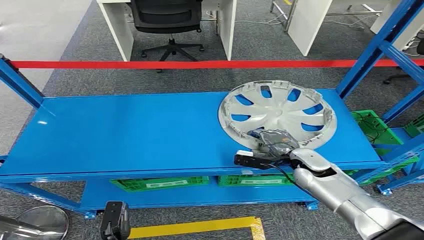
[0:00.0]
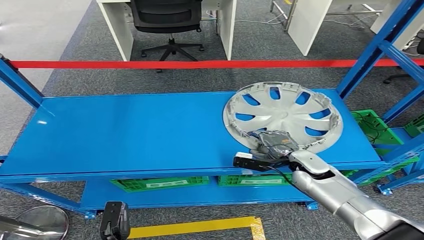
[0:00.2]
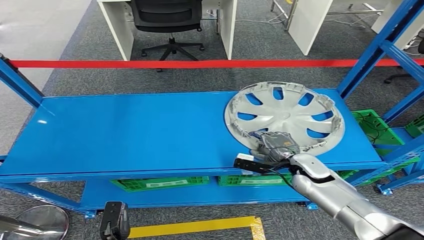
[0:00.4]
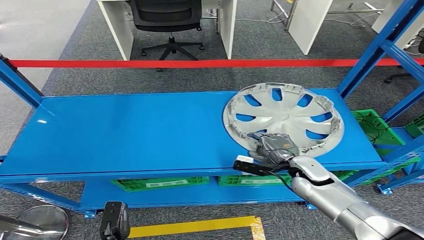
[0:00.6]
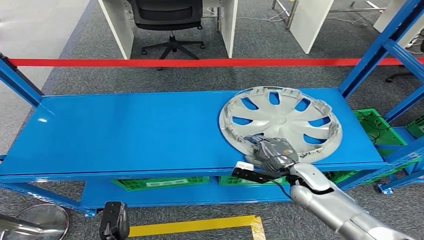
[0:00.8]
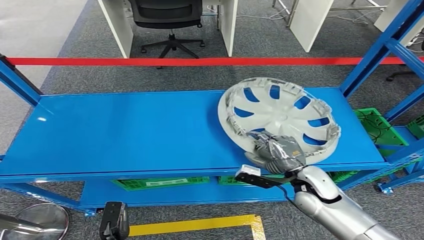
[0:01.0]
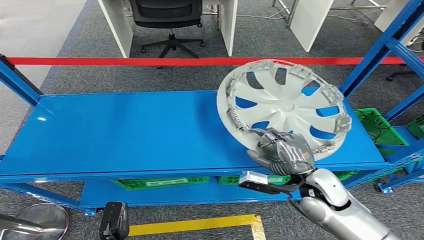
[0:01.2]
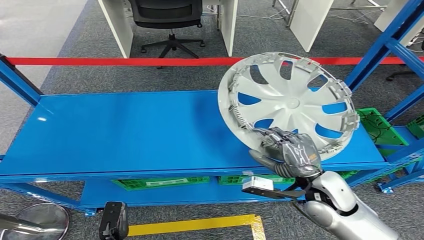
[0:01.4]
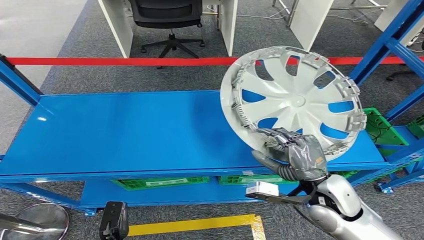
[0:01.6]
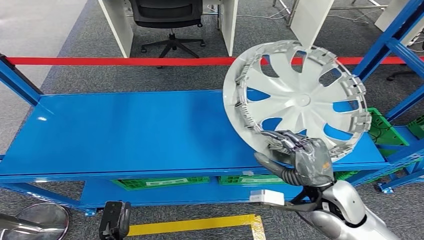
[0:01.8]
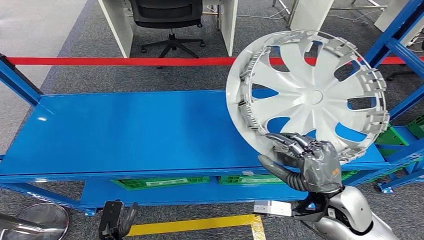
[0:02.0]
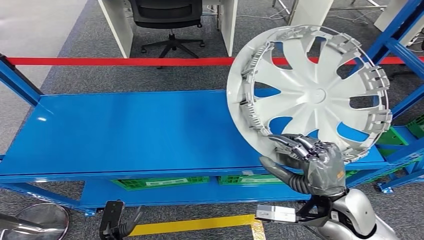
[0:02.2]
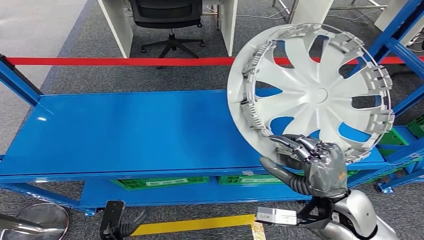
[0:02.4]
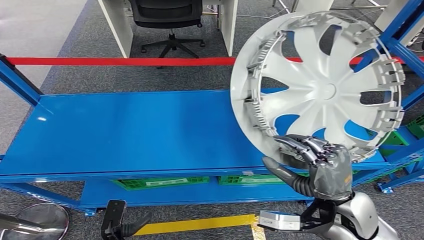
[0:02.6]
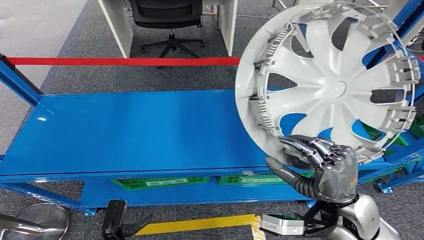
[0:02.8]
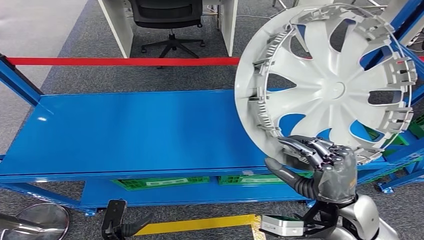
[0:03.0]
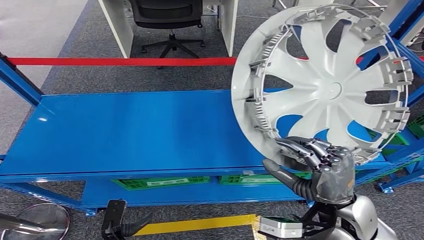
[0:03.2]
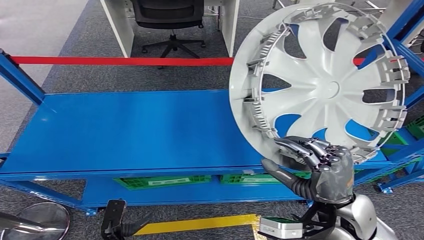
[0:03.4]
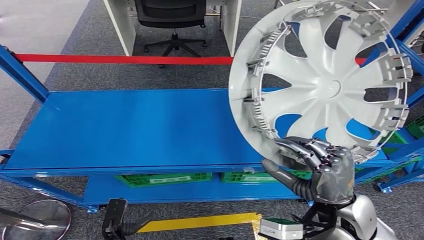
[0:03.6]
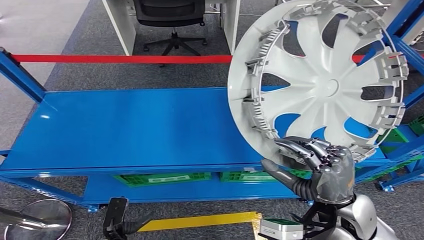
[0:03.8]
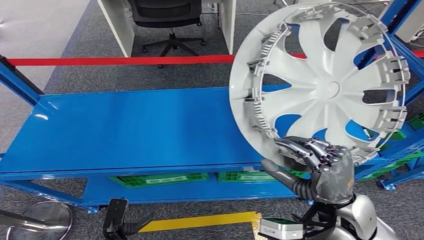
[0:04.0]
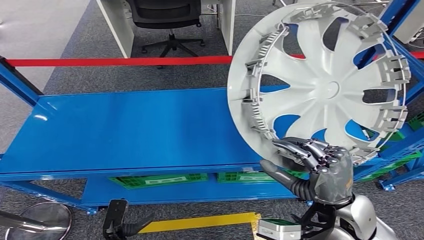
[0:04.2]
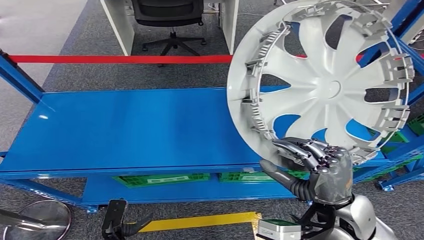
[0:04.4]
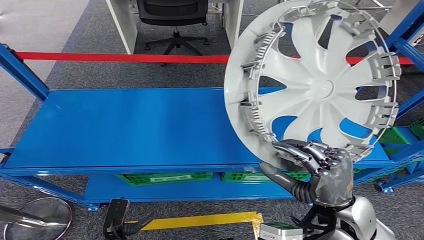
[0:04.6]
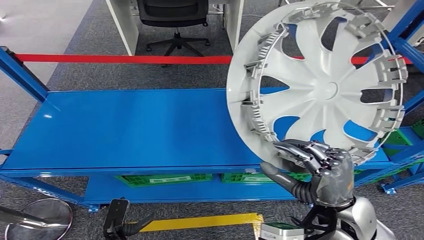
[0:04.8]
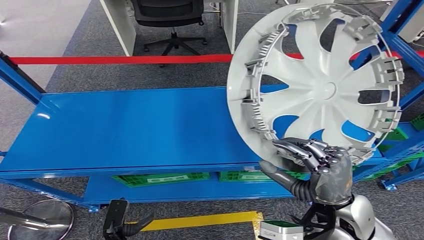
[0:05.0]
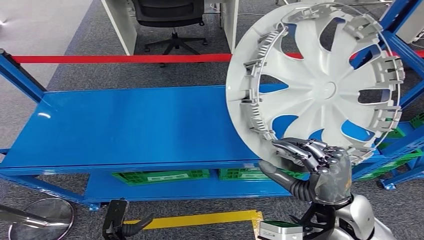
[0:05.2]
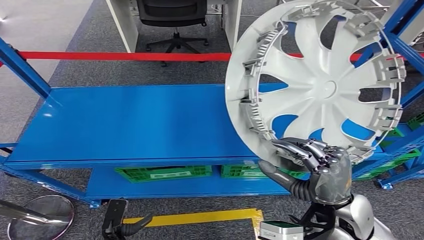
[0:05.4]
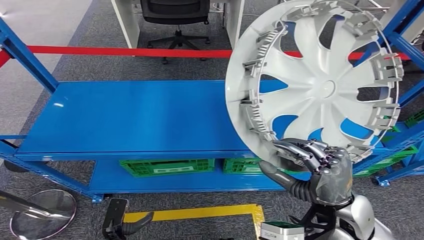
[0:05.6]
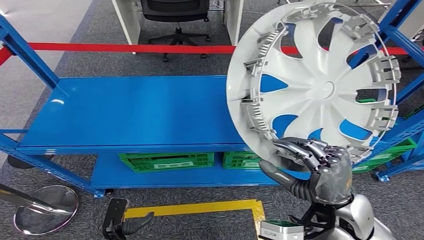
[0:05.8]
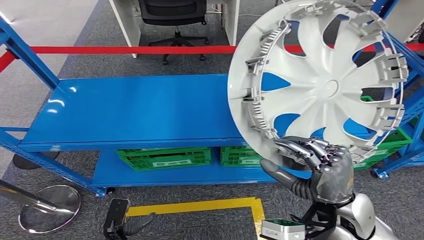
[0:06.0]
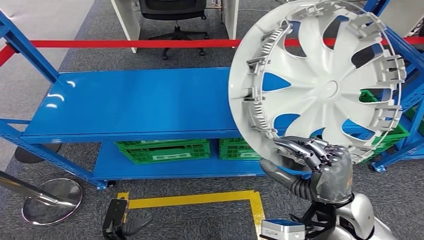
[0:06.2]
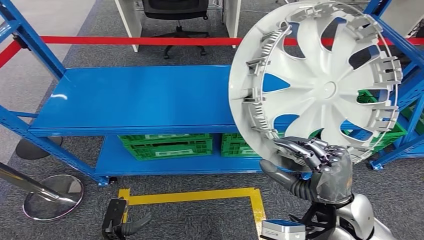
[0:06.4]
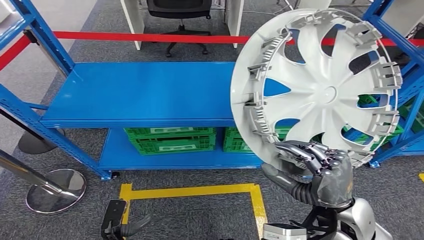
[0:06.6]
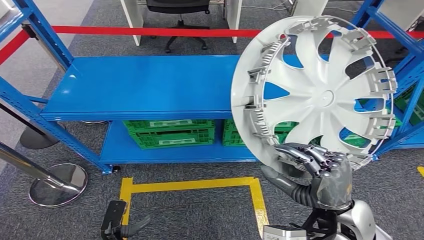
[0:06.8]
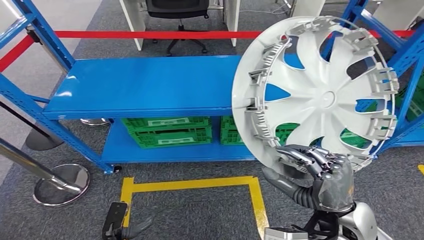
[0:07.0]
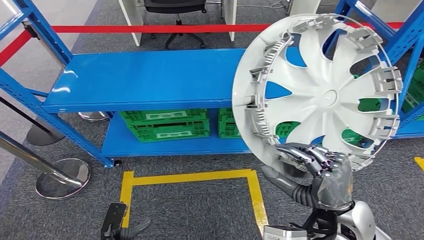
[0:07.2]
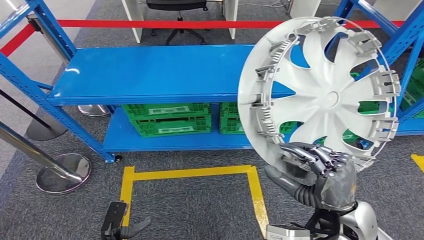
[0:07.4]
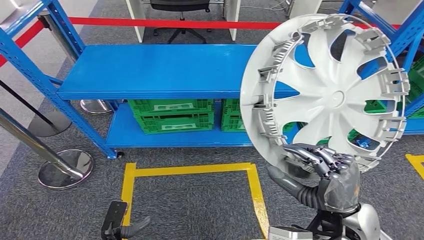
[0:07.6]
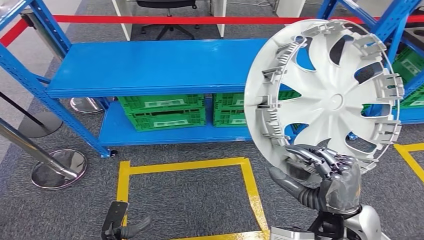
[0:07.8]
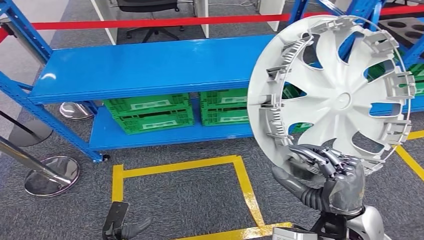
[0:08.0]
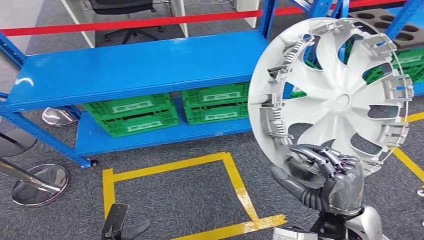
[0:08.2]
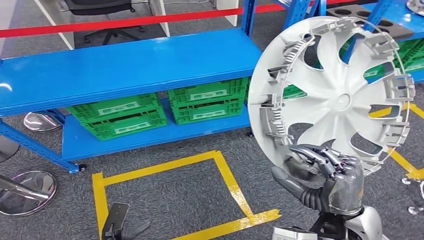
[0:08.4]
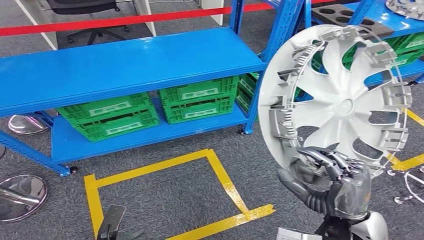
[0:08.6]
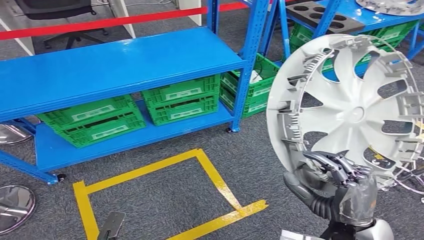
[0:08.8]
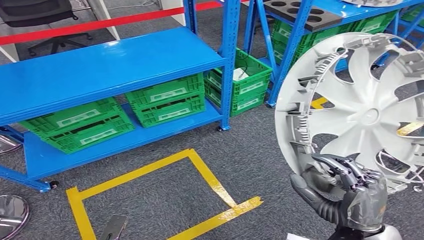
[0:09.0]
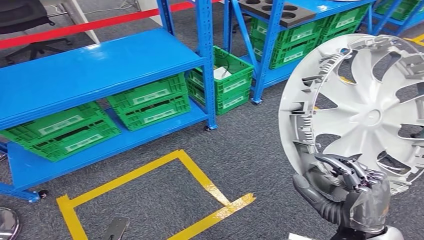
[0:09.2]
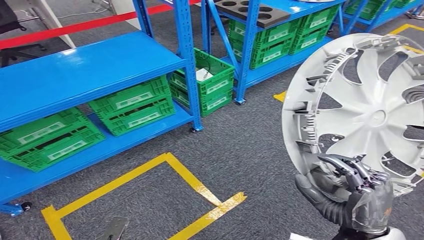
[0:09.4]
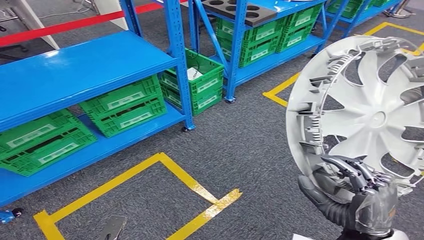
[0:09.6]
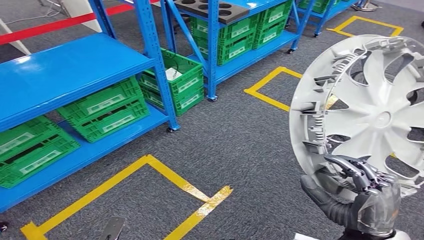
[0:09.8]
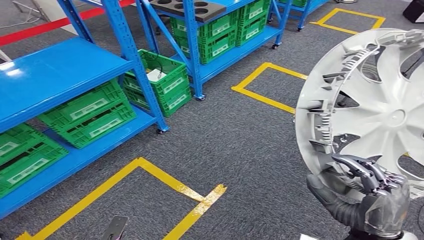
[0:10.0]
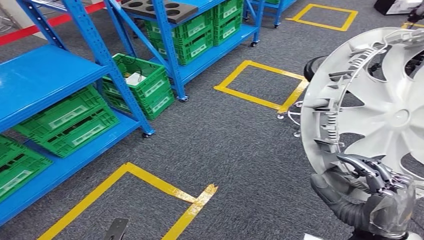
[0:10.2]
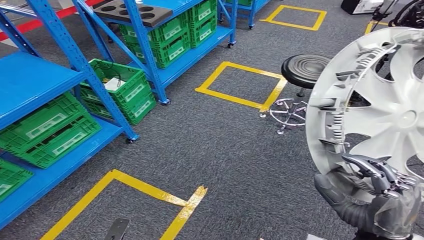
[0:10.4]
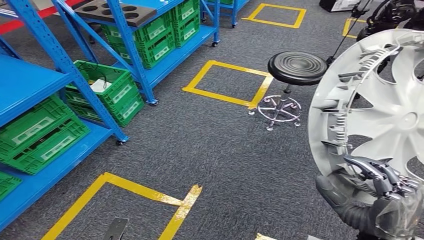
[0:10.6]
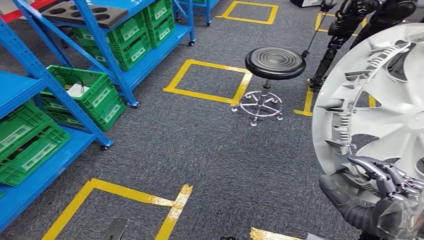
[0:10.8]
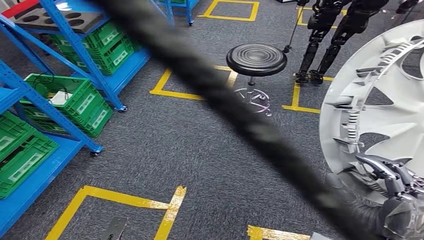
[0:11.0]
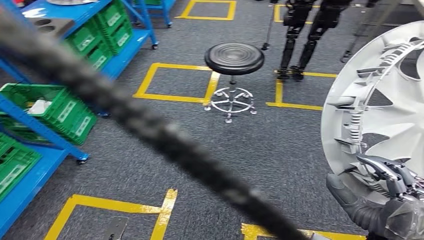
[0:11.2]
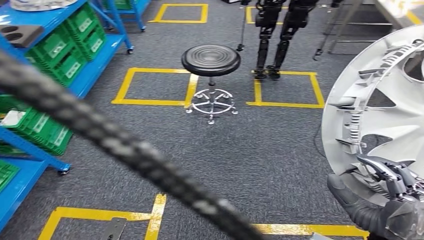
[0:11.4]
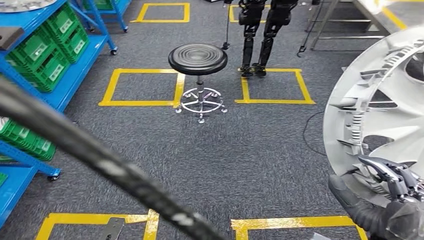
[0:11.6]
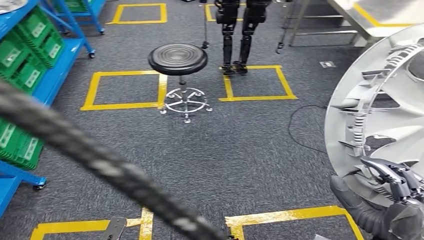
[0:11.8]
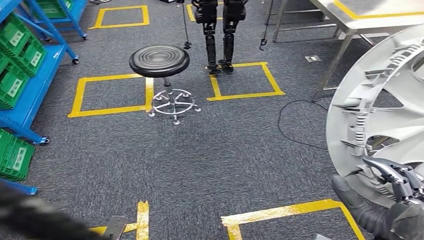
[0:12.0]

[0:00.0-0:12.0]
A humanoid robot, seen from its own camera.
Step, 0:00.0 to 0:02.8: Pick up the small parts from the shelf.

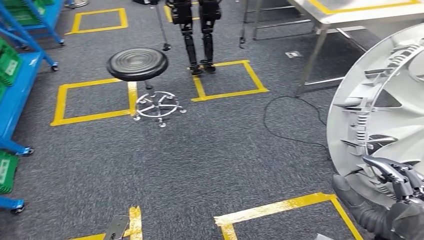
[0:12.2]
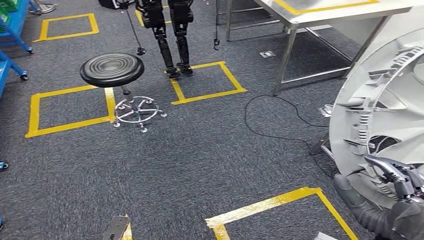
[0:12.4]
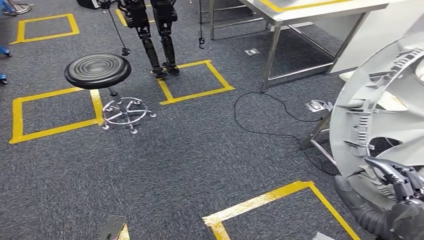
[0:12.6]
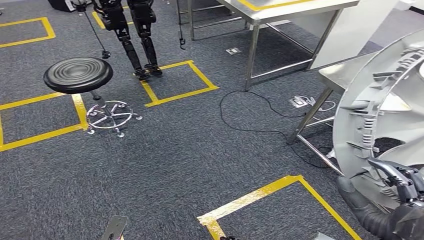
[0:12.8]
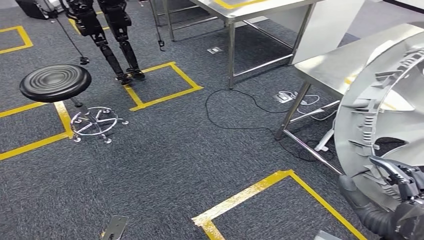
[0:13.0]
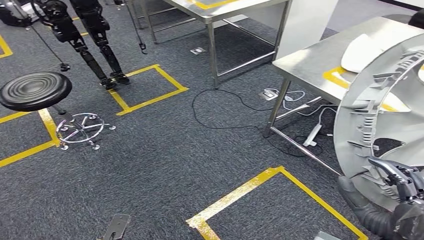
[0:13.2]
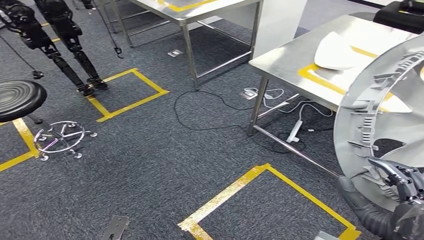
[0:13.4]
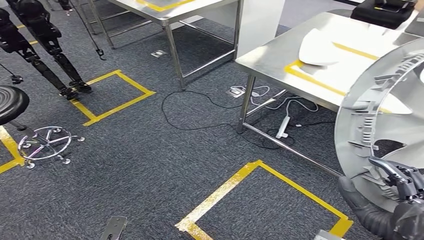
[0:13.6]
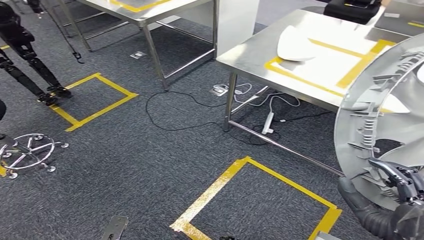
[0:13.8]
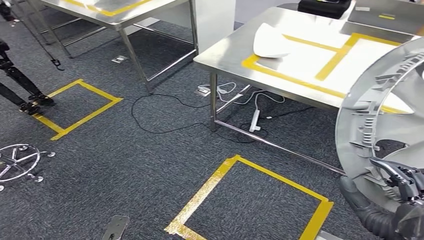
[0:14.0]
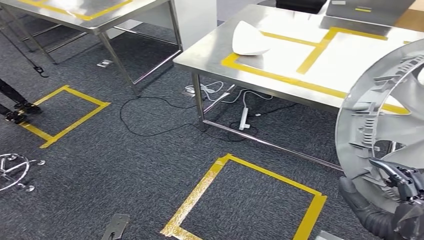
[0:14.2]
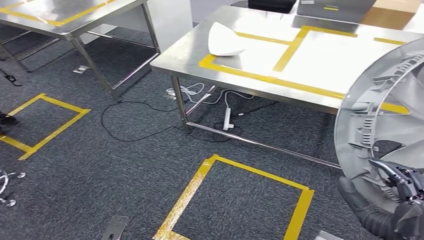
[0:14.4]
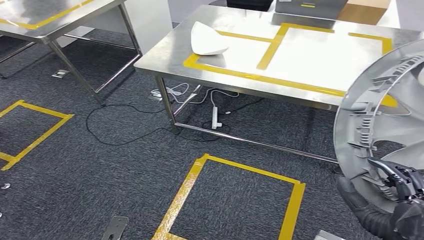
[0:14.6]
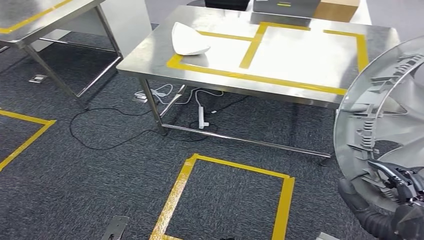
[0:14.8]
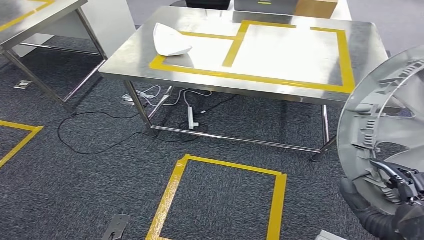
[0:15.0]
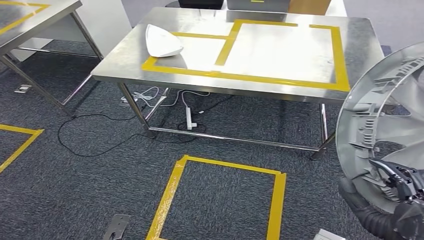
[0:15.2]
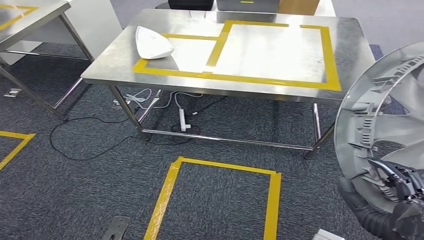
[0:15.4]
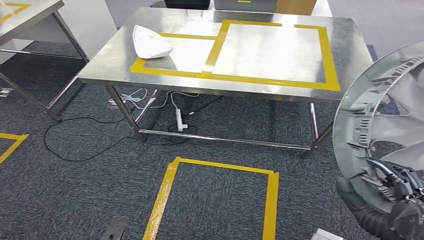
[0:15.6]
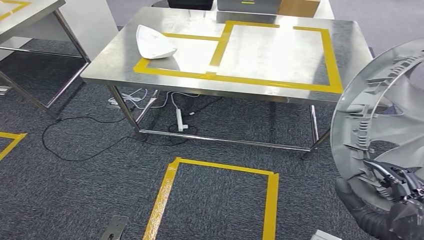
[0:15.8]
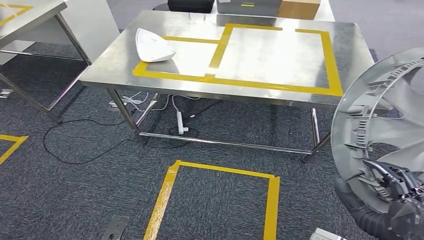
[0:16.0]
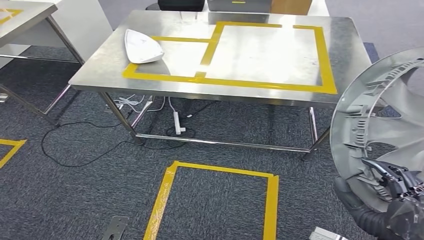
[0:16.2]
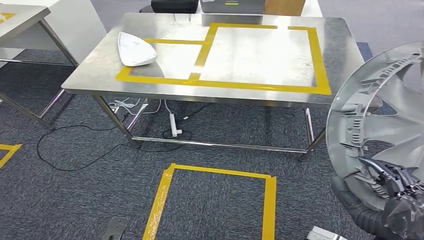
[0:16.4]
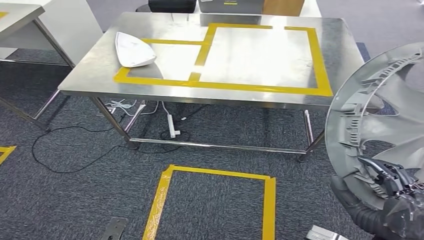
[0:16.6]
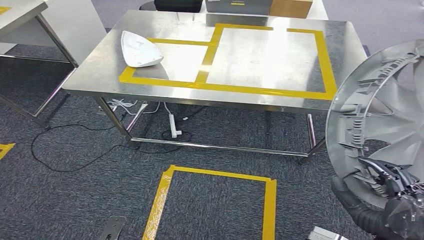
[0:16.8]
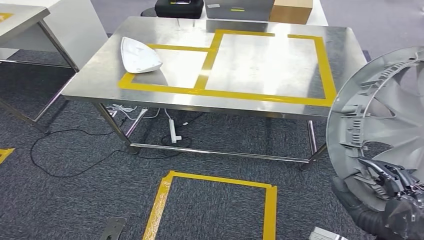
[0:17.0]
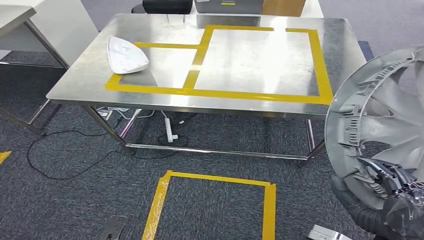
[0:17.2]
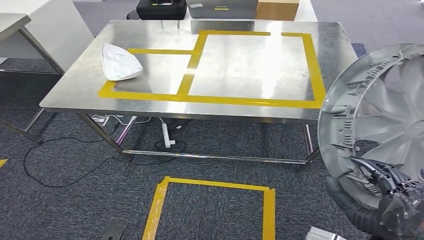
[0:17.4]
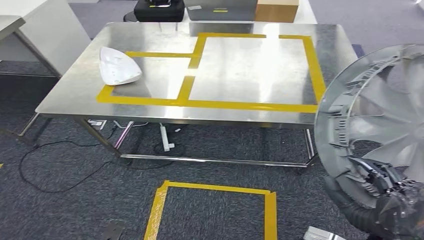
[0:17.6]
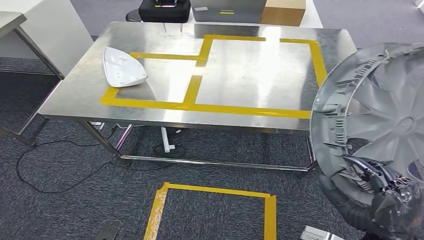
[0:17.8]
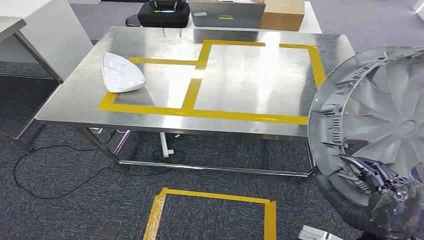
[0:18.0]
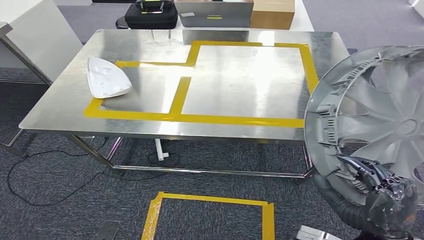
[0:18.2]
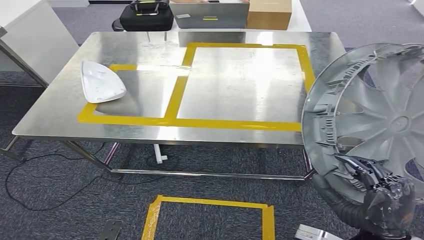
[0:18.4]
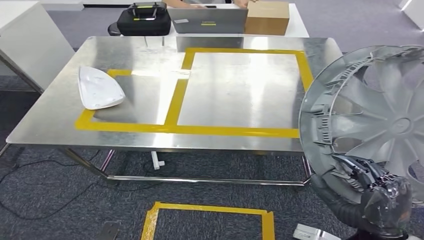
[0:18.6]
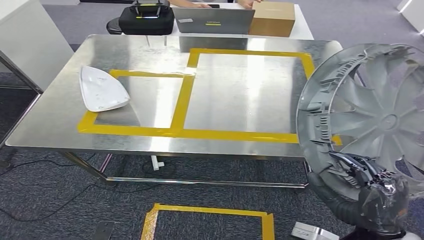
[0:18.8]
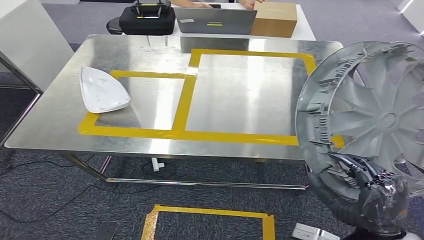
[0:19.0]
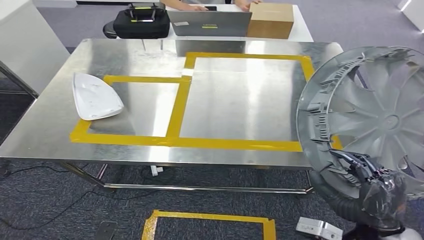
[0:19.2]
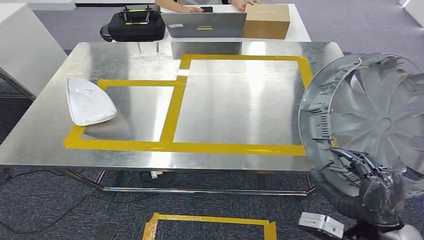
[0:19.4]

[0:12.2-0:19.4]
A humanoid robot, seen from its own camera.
Step, 0:12.2 to 0:17.4: Move the small parts to the workbench.
